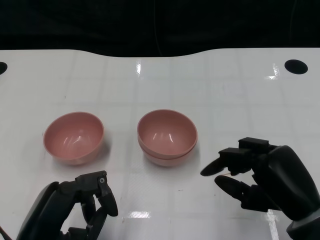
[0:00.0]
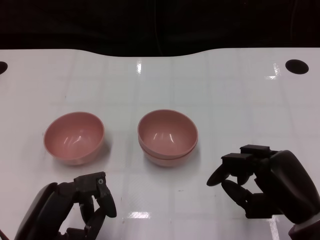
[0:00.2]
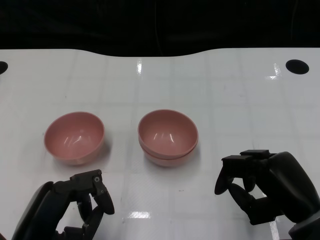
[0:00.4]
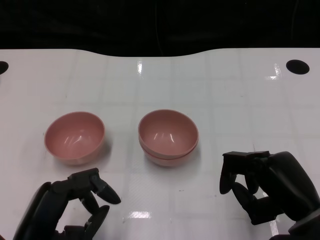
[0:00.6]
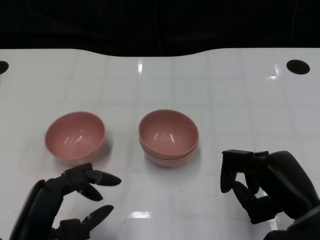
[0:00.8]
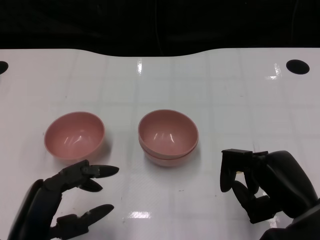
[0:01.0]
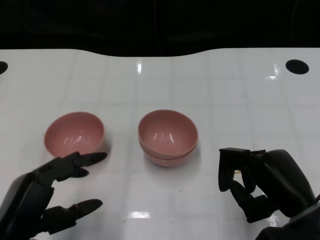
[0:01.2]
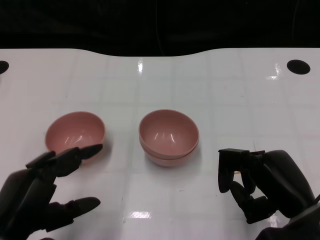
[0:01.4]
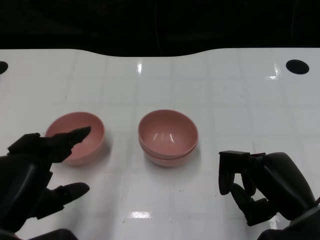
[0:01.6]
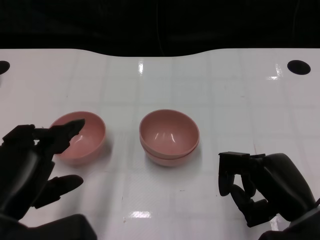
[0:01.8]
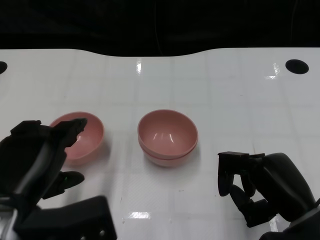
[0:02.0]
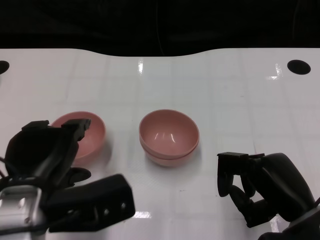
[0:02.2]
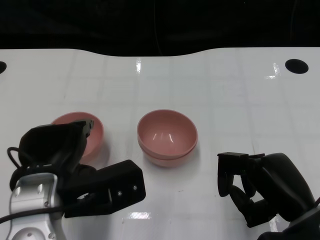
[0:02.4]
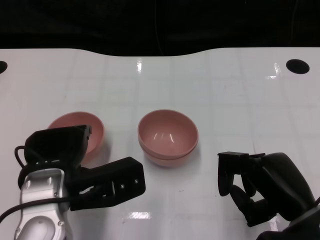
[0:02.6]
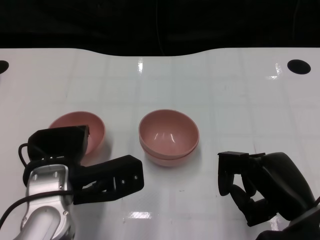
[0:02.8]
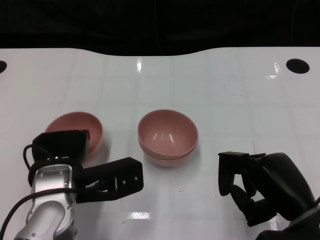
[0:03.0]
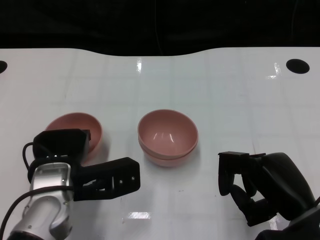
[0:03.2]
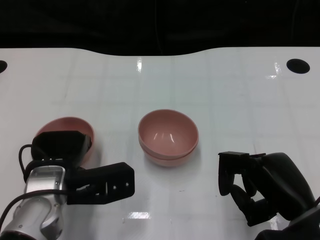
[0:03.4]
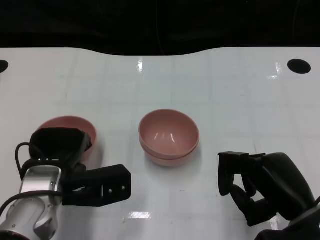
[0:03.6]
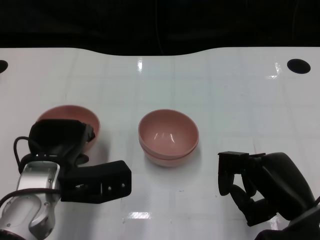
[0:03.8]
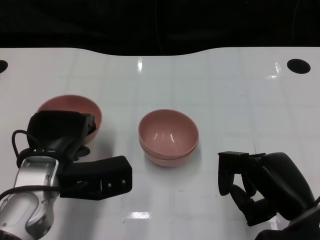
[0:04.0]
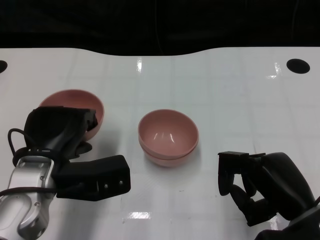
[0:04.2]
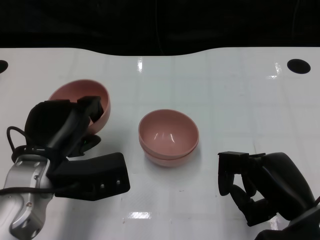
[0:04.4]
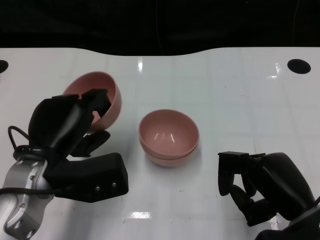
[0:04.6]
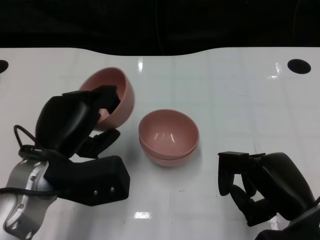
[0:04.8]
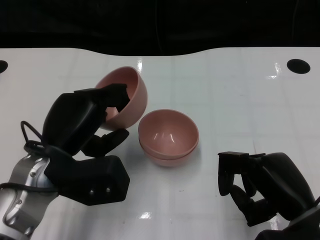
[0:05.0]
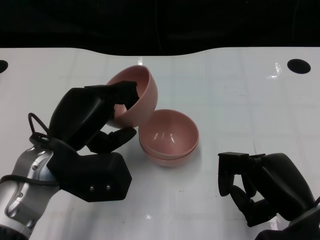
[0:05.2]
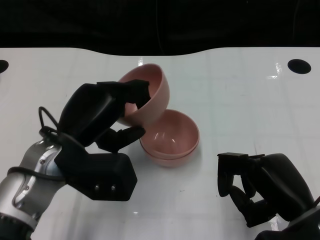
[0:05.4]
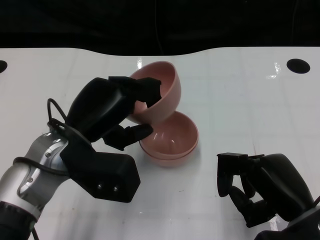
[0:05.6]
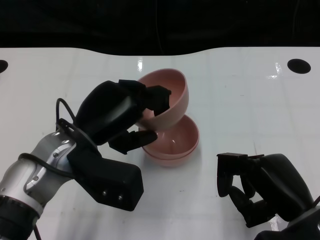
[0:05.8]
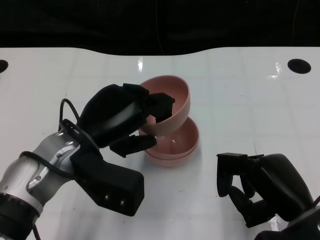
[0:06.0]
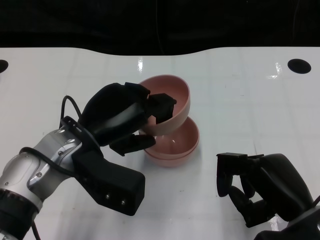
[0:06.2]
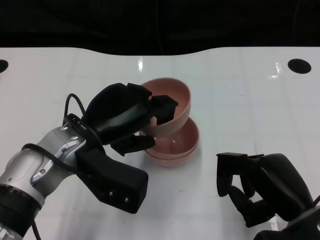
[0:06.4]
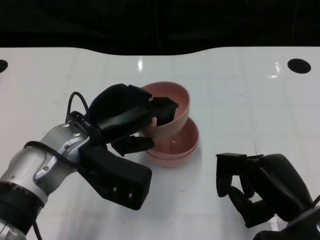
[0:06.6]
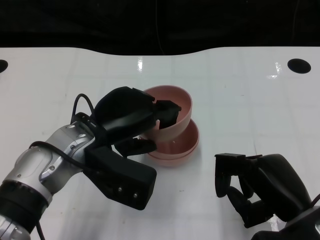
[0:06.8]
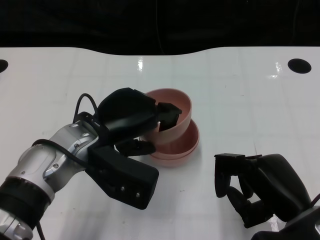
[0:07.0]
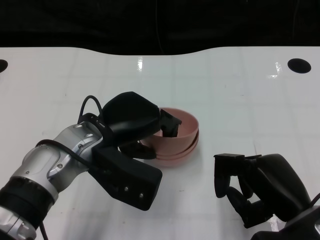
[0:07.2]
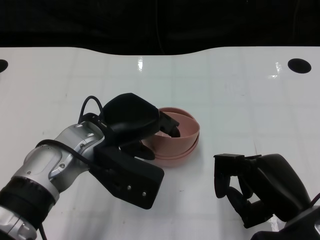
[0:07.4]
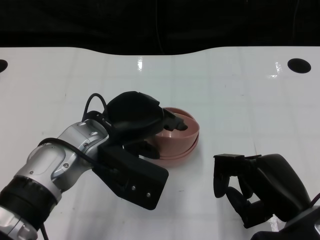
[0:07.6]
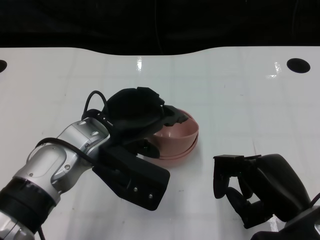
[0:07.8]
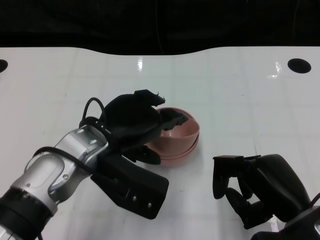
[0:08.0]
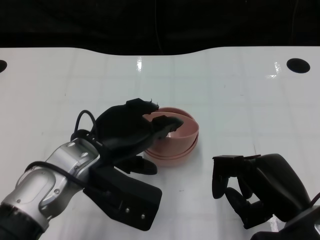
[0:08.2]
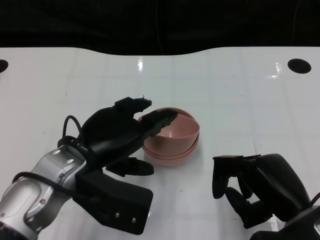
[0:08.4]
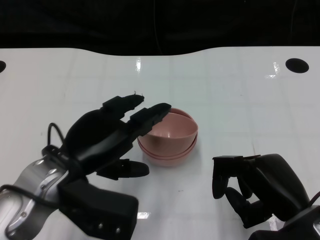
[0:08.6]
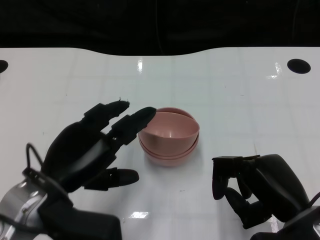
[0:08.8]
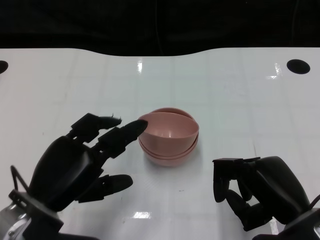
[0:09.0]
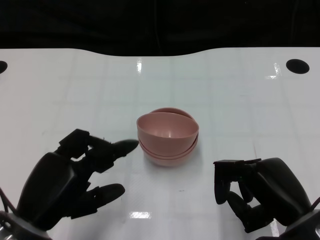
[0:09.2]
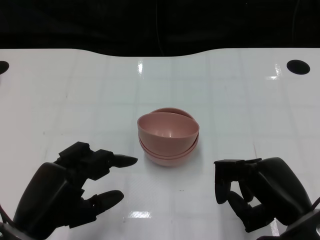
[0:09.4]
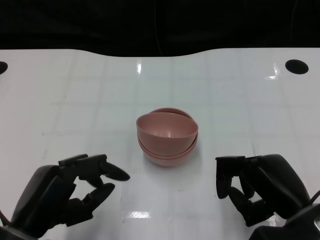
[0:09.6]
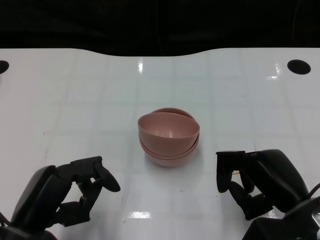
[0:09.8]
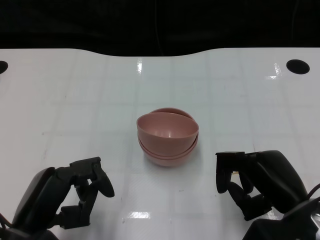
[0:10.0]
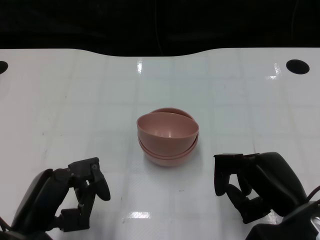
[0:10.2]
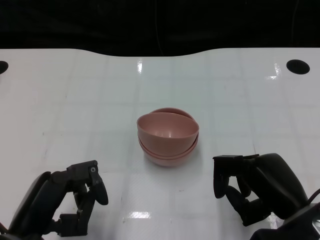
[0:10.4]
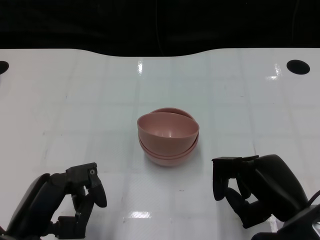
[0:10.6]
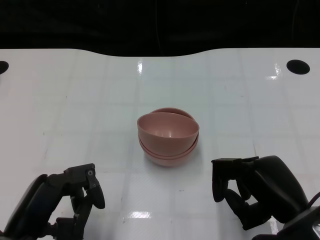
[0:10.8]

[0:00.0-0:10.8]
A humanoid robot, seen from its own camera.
Task of the whole recording: Pick up the bowl on one side of the table and place it on top of the middle bowl, then pick up the bowl on the other side of the table and place it on top of the middle bowls.
Step, 0:00.0 to 0:03.6: Grasp the bowl on the left with the left gripper.
Step, 0:03.8 to 0:08.6: Place the bowl on the left onto the bowl in the middle with left gripper.
0:00.0 to 0:01.6: The left hand ends up about 5 cm from where it was.
0:01.6 to 0:03.0: The left hand shifts about 15 cm forward and to the right.
0:04.6 to 0:06.2: The left hand moves roughly 5 cm.
0:07.8 to 0:09.2: The left hand is displaced backward and to the left by some 15 cm.
